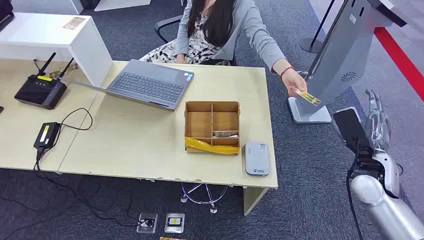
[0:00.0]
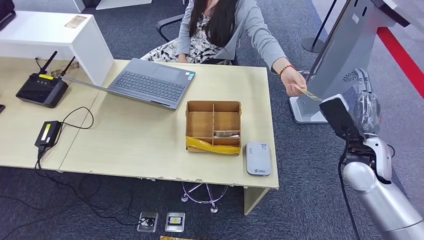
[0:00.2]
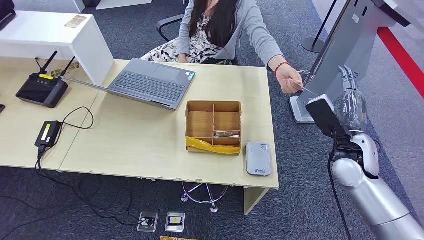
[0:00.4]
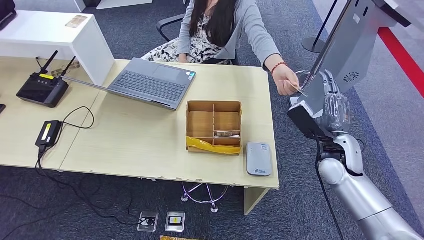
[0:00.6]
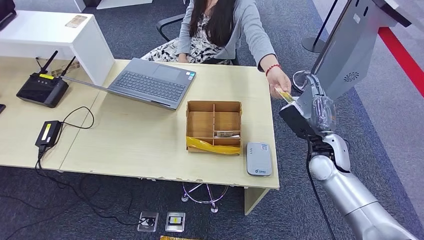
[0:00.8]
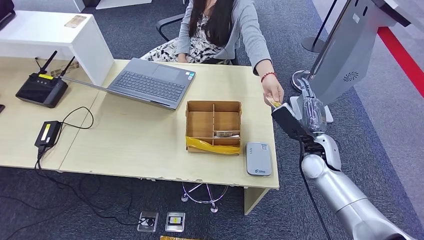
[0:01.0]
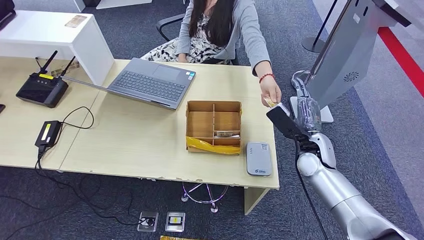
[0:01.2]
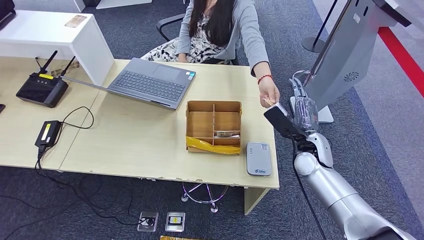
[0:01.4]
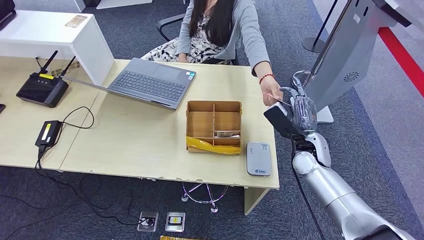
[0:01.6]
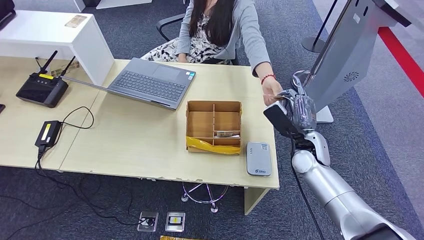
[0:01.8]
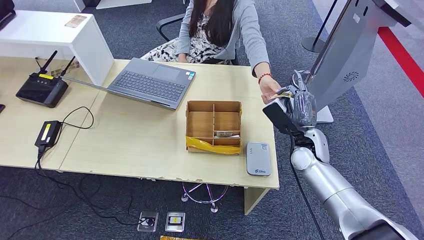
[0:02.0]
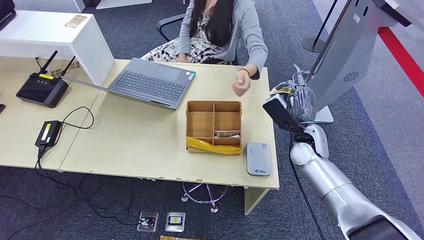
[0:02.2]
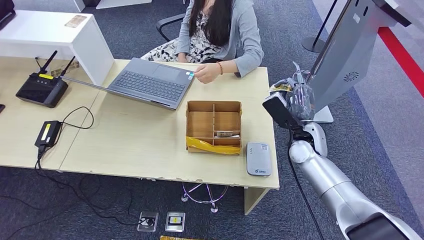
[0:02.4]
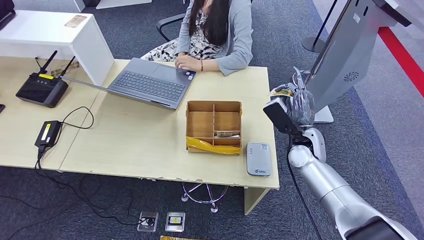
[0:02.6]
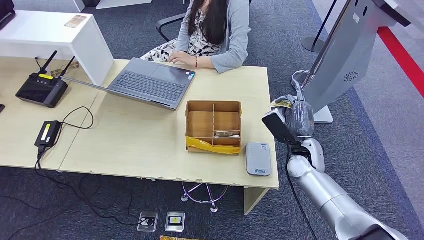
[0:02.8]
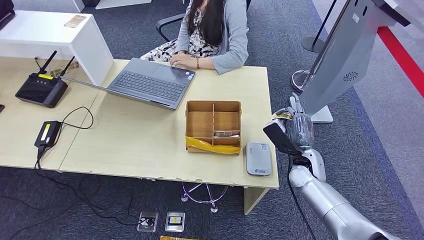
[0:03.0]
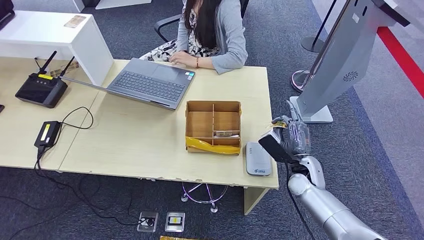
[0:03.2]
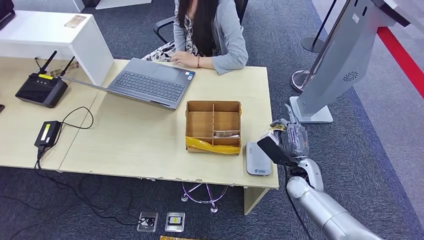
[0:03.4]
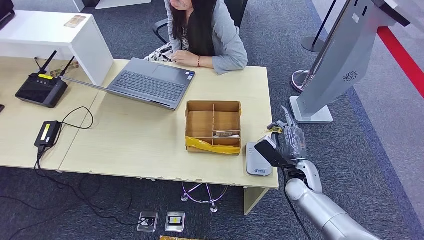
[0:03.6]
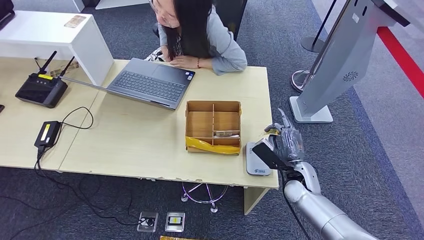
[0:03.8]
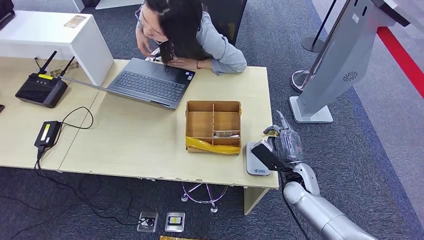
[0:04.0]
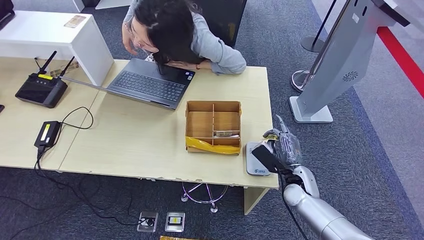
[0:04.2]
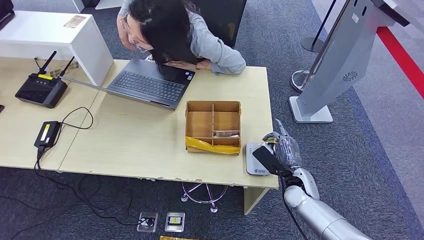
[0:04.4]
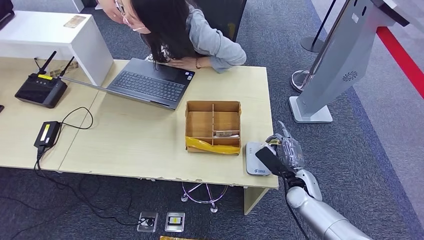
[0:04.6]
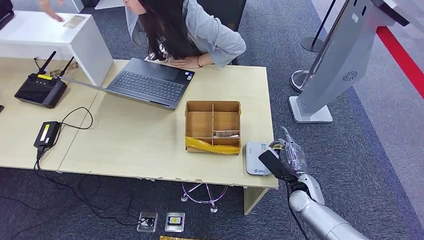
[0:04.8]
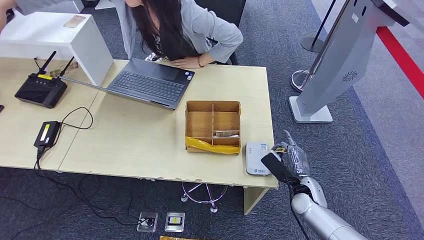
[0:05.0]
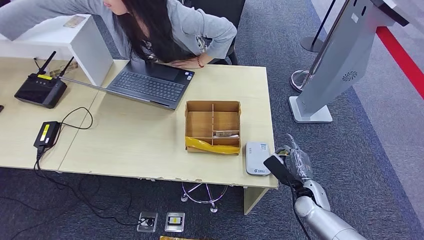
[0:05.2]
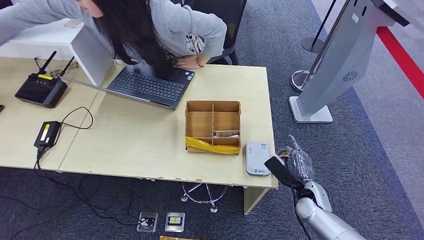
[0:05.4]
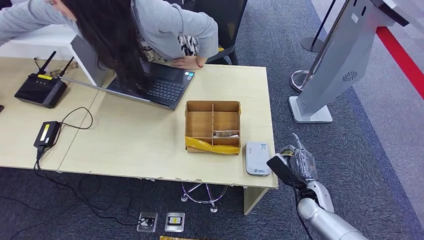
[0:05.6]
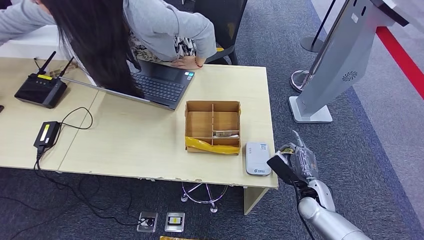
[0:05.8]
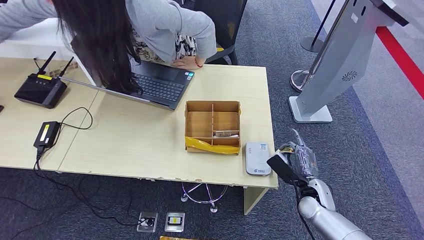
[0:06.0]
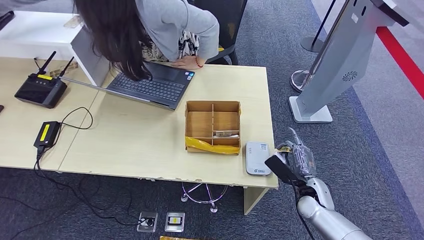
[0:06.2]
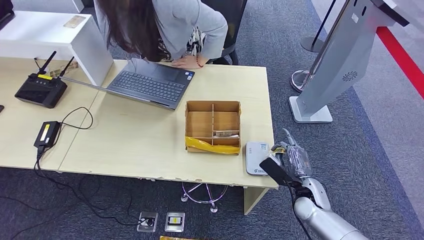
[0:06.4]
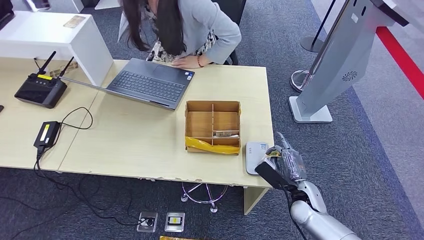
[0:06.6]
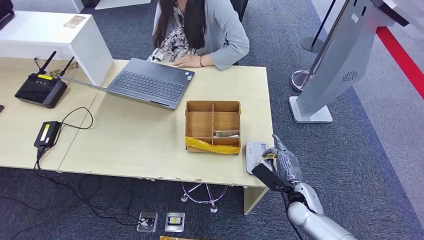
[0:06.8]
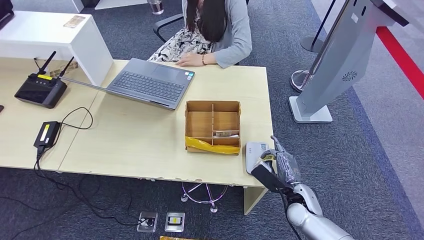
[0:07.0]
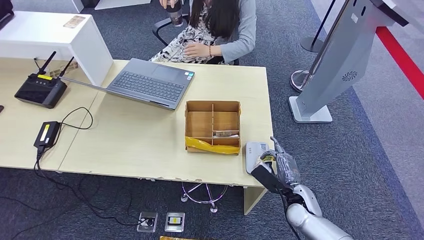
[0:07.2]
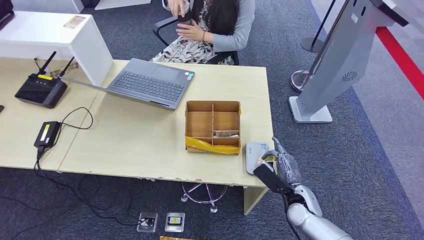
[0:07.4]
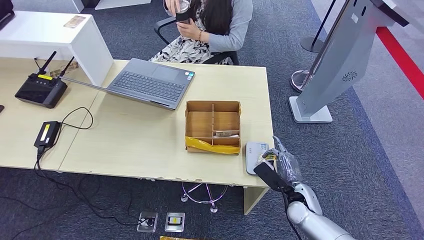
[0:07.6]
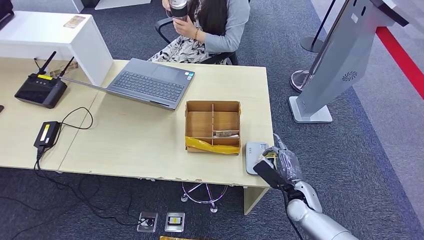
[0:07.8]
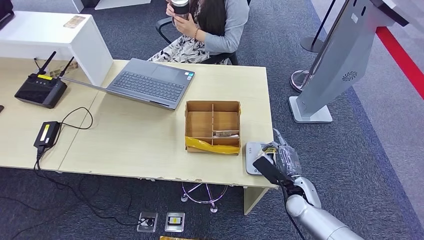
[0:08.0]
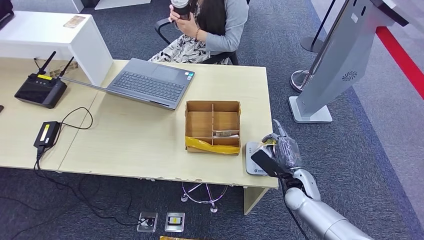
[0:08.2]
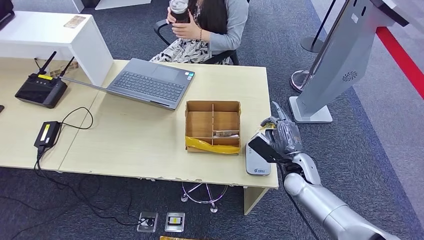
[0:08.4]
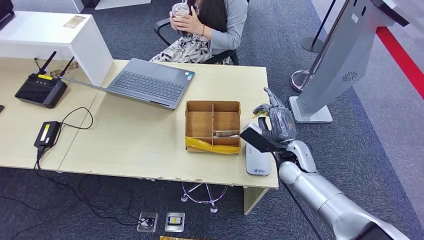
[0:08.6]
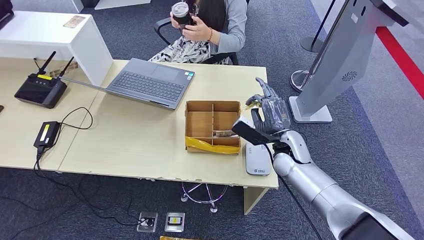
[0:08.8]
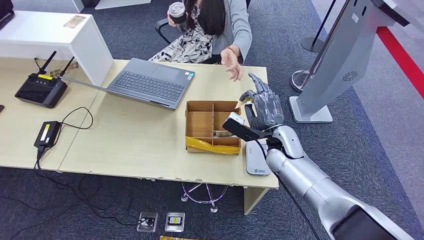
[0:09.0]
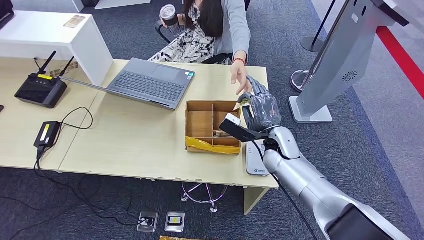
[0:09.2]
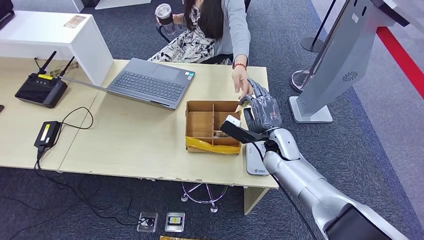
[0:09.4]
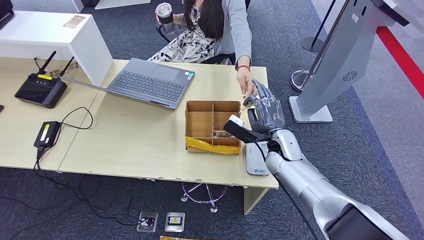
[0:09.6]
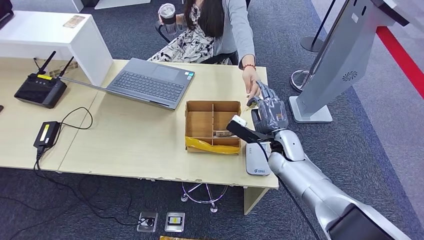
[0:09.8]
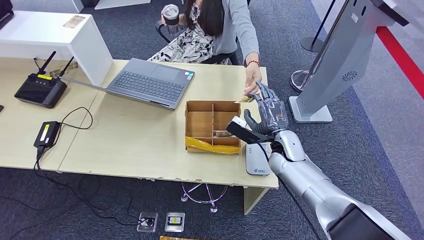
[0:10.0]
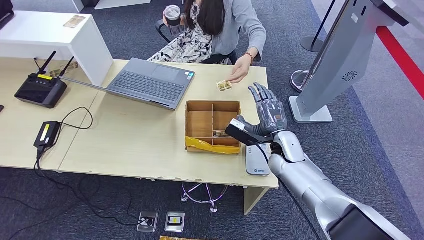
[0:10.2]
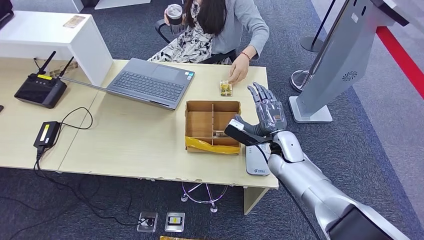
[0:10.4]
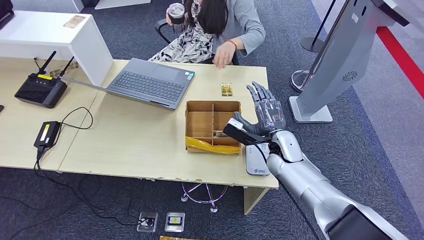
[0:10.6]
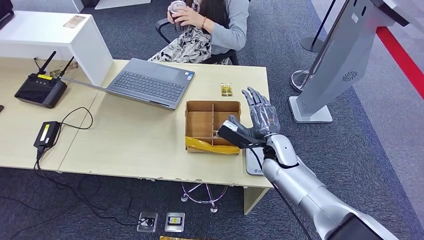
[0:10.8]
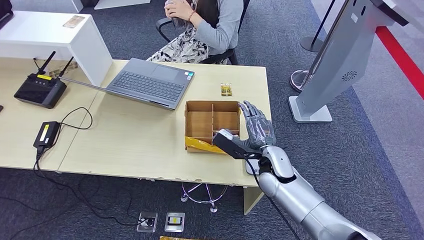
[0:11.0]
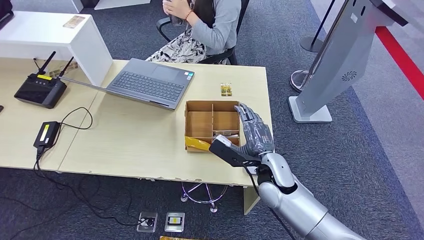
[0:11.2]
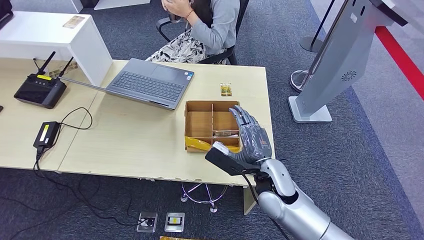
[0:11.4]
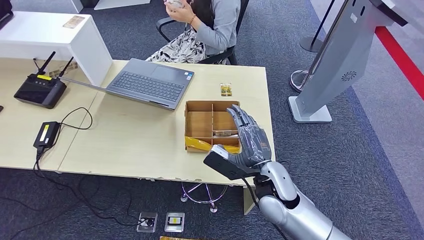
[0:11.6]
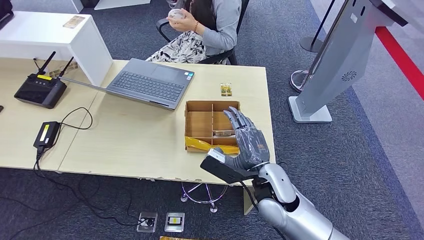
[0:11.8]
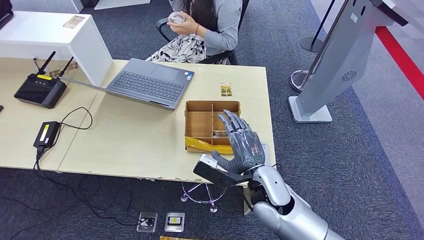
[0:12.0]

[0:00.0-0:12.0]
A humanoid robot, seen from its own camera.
Step, 0:00.0 to 0:02.4: Take the ID card from the person's hand.
Step, 0:02.6 to 0:06.0: Place the ID card on the card reader.
Step, 0:06.2 to 0:10.2: Hand the ID card to the person.
0:01.6 to 0:03.0: The right hand changes place by approximately 5 cm.
0:03.0 to 0:04.4: The right hand changes place by roughly 5 cm.
0:04.4 to 0:06.0: The right hand shifts by about 5 cm.
0:07.6 to 0:09.0: The right hand travels upward, forward and to the left by about 20 cm.
0:09.0 to 0:10.4: There are only small adjustments of the hands.
0:10.4 to 0:12.0: The right hand goes about 15 cm backward and to the left.

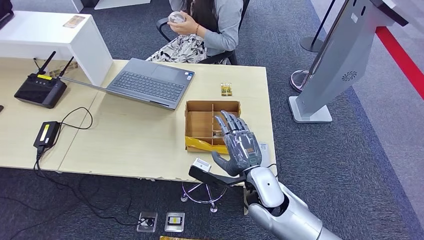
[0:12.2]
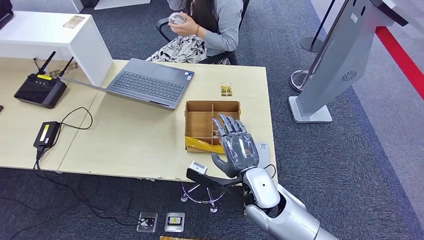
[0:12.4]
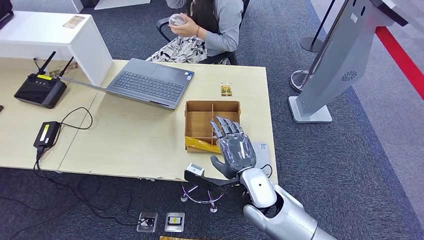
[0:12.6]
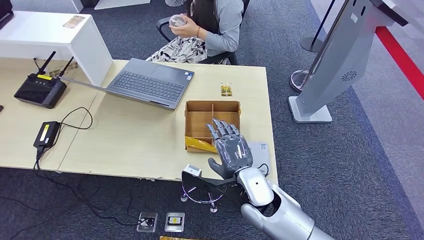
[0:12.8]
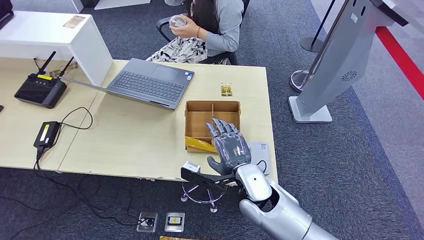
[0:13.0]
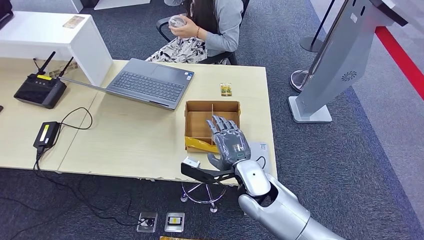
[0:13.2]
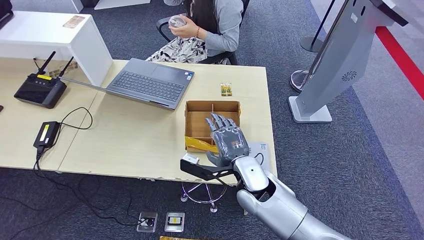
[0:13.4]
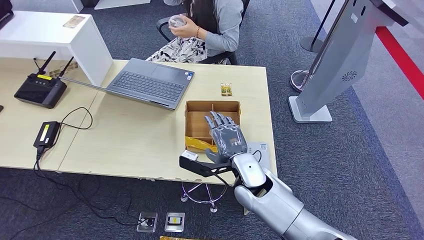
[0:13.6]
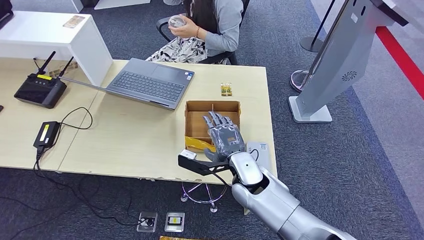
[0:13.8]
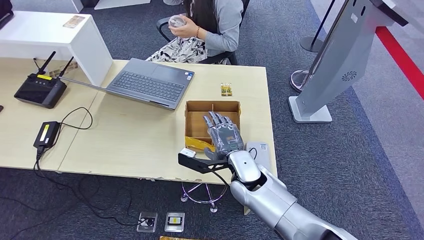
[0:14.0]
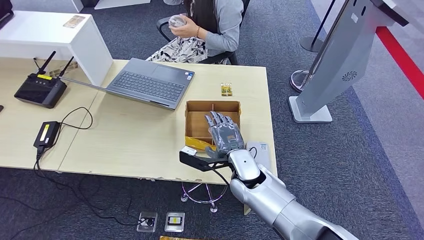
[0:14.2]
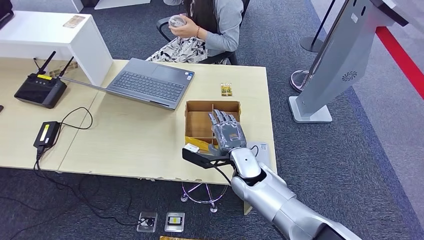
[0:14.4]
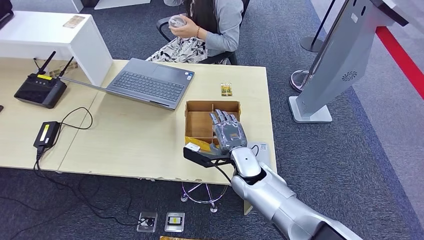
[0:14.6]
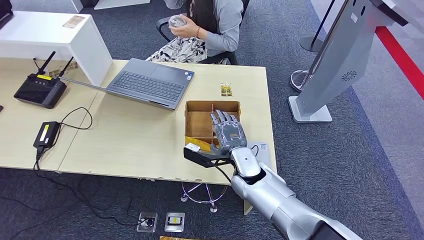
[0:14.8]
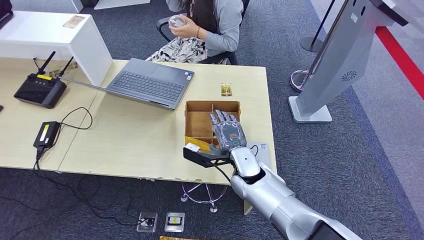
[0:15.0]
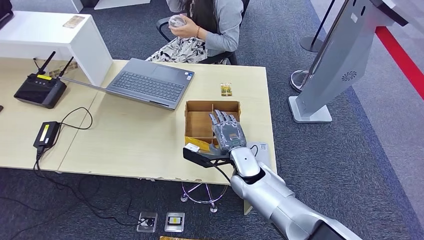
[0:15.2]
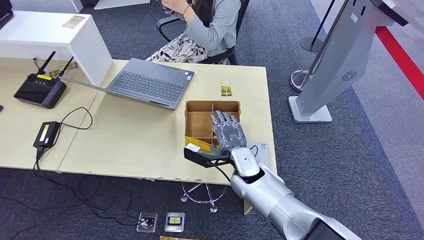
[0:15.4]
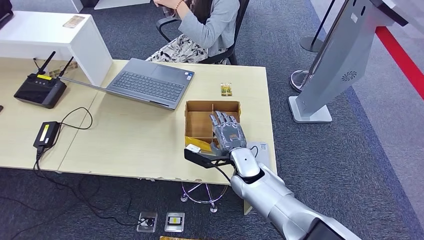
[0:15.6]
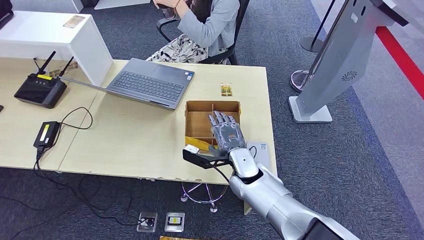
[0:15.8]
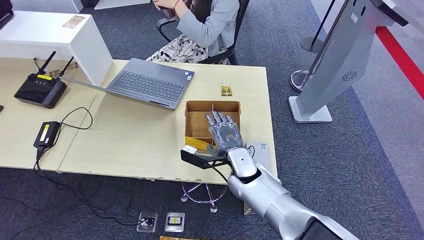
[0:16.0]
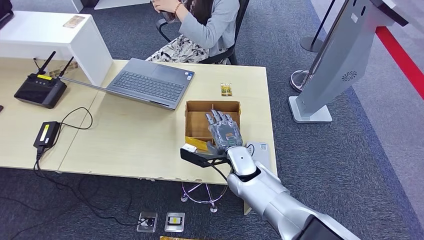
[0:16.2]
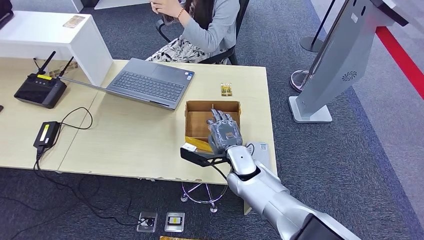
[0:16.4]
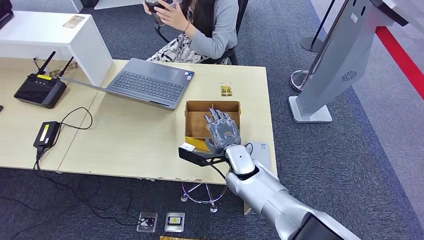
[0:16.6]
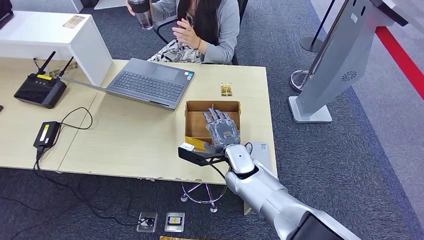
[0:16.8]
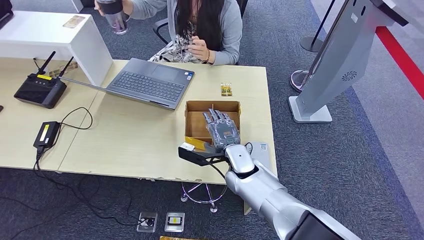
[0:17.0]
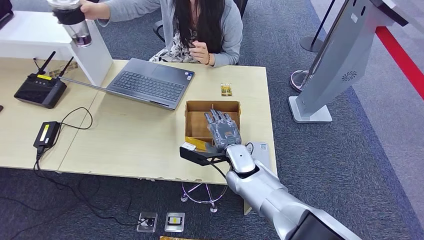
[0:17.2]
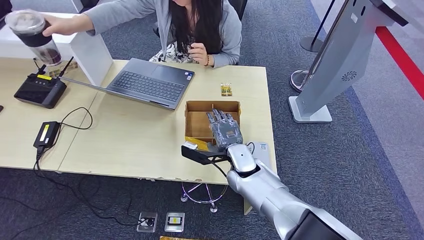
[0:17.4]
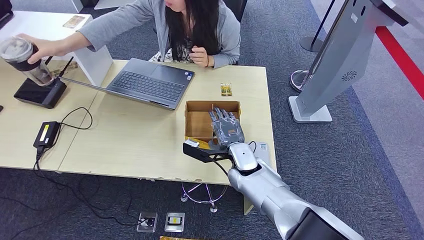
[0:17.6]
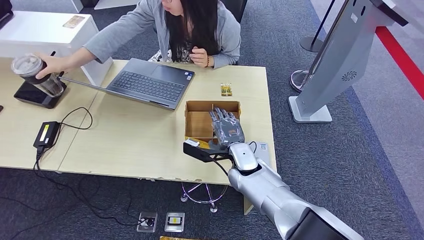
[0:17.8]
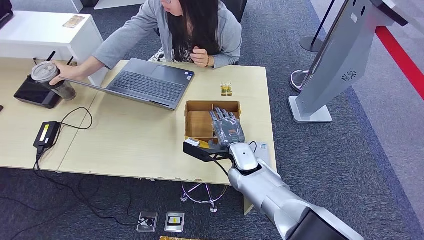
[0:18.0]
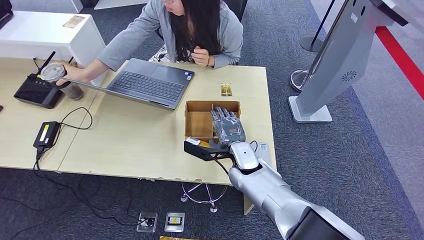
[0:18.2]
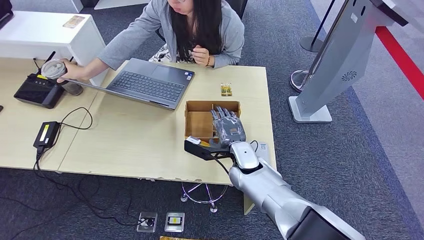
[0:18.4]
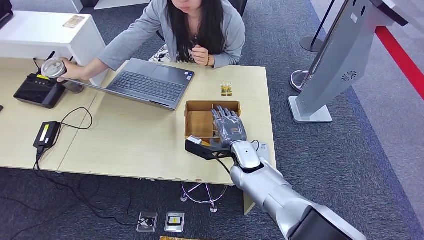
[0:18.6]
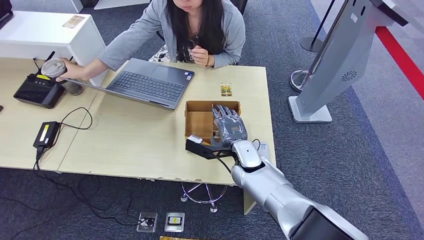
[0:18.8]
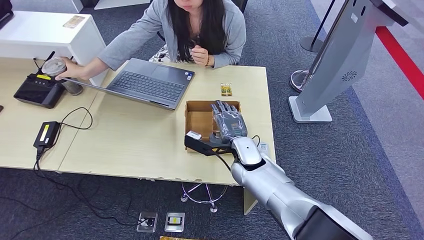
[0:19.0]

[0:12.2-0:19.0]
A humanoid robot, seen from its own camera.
0:12.2 to 0:13.6: The hands make only small movements.
0:13.6 to 0:19.0: The hands move only a little.
